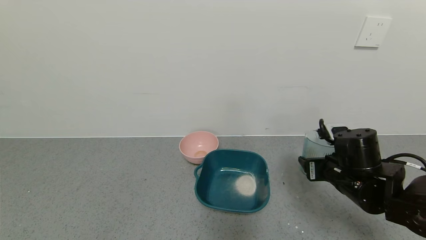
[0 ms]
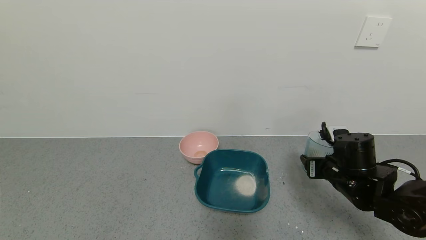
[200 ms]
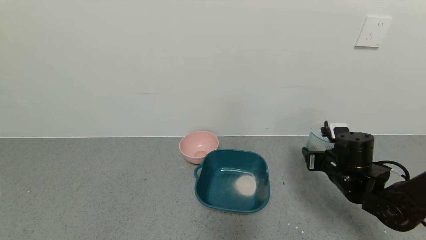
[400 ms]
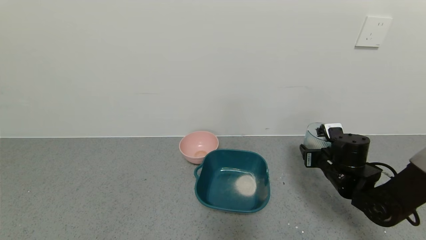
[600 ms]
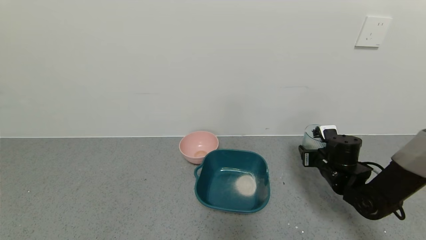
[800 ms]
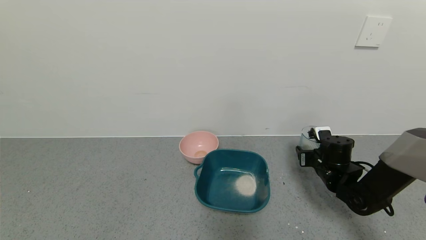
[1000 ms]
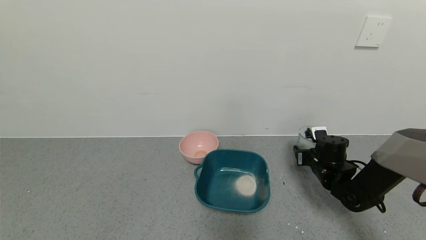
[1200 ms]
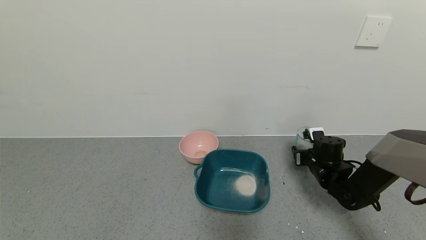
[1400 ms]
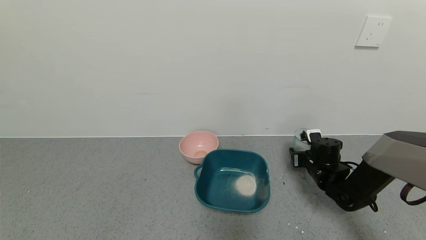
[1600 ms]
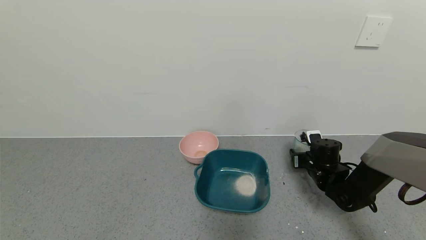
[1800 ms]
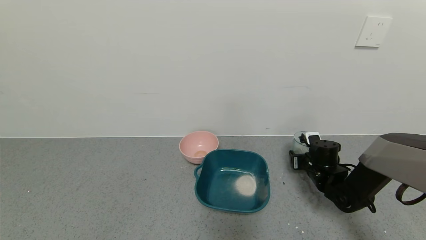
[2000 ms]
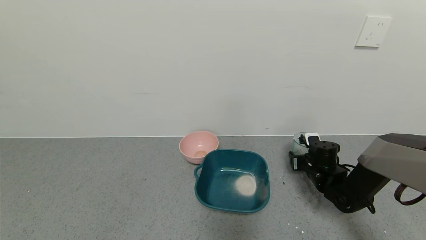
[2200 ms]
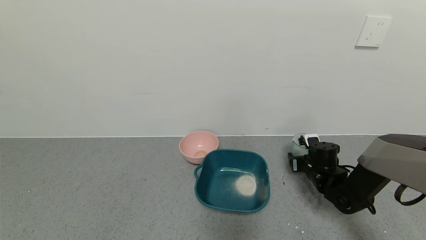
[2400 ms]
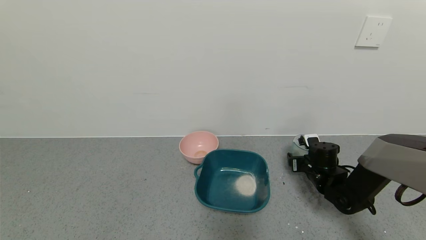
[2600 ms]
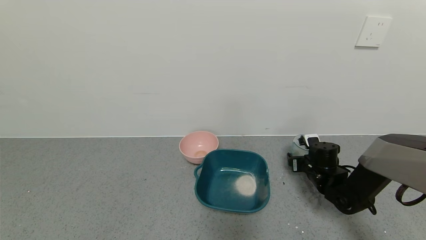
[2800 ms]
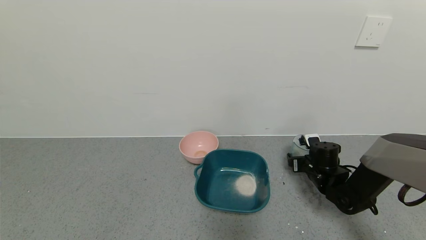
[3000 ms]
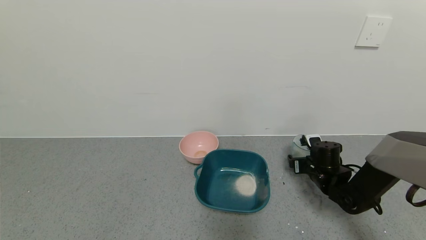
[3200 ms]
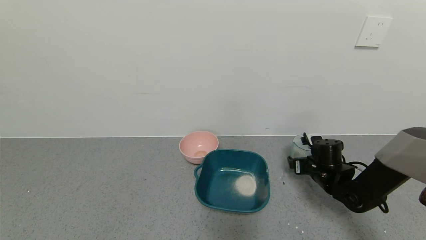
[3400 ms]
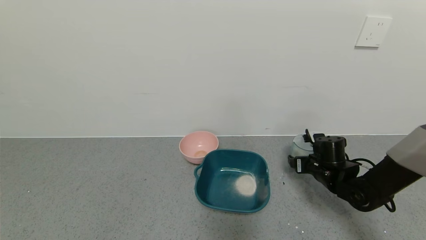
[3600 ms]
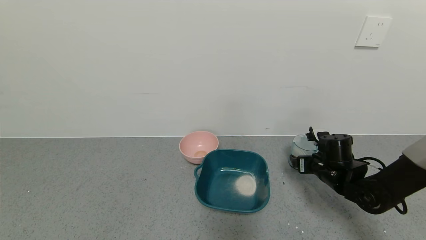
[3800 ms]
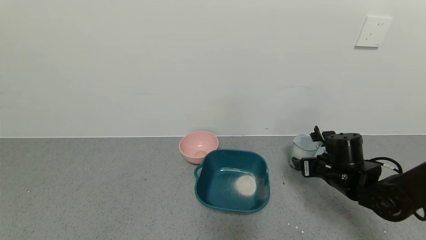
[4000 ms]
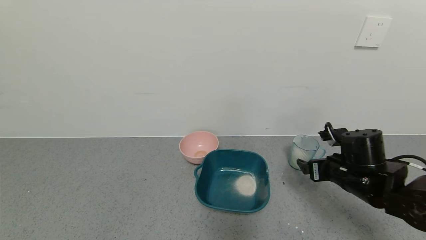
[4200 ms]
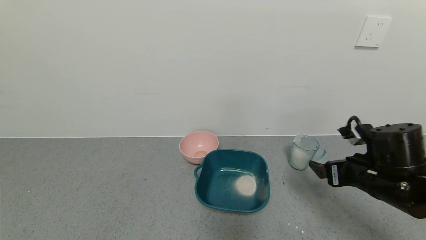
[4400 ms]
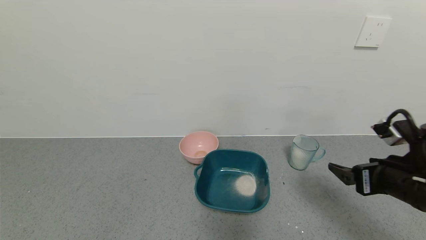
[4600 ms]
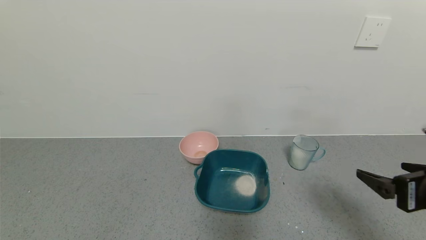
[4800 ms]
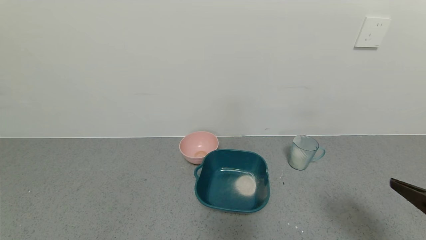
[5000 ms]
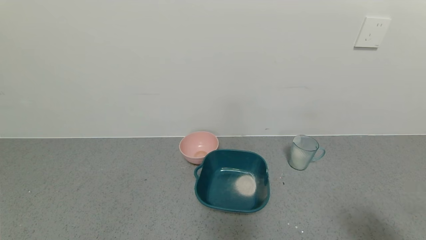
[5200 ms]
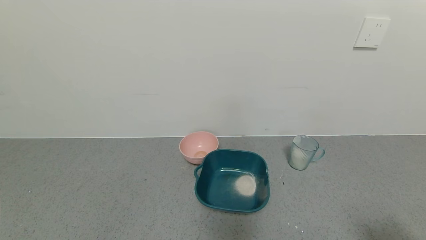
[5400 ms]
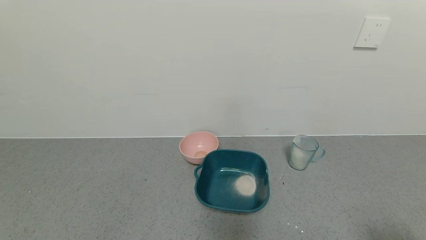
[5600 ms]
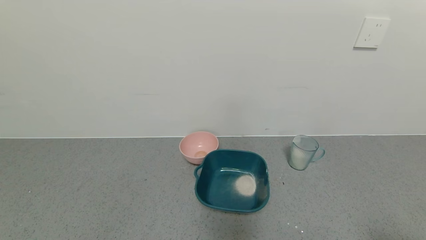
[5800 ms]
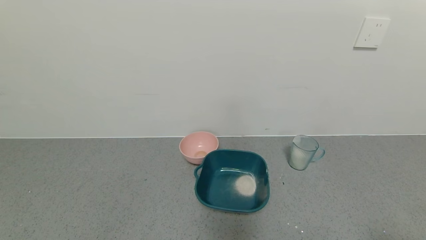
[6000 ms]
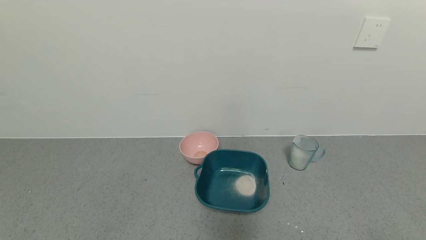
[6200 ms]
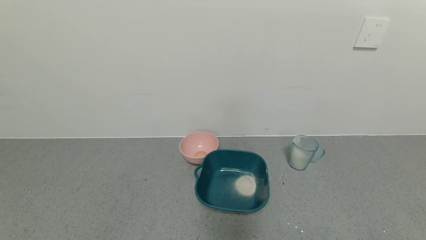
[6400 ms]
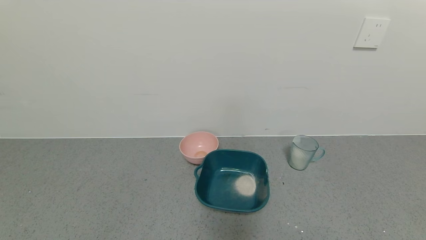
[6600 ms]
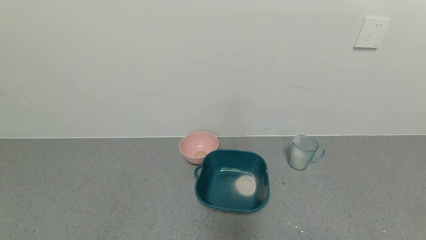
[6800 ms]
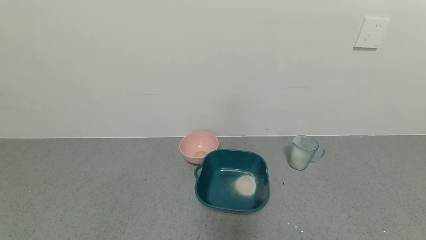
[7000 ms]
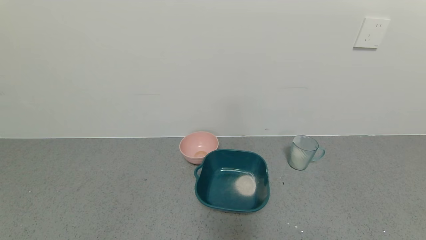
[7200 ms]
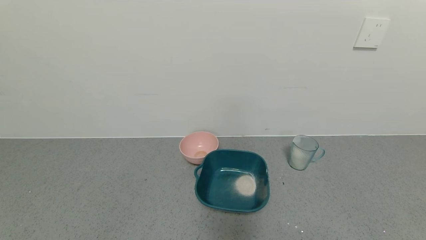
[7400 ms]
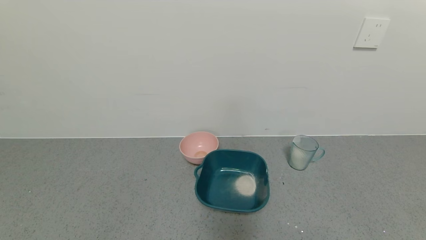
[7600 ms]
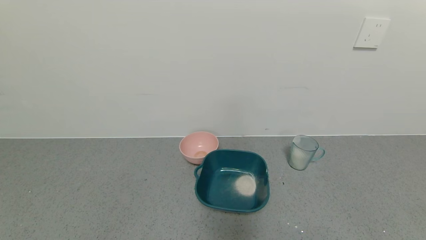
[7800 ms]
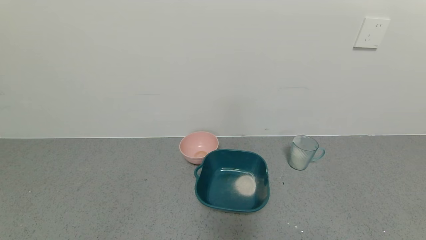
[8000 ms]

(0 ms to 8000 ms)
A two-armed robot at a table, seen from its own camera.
Task of the whole recording: use a gripper to pick up the cup and pour the powder into a bowl or tray.
Step, 0 ms - 3600 ms: Place the glass cup down with the right gripper.
0 ms - 1600 ms: The right gripper shifts roughly 15 cm forward and downward.
1600 ms - 3200 ms: The right gripper opens up.
3200 ms - 4800 ms: The right gripper is displaced backward and upward by some 30 cm.
4800 ms - 6400 ms: The right gripper goes roughly 20 cm backward.
